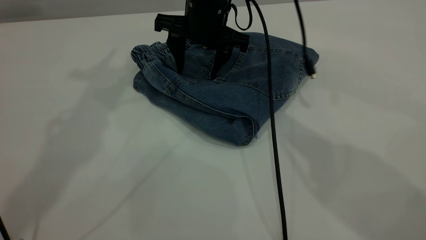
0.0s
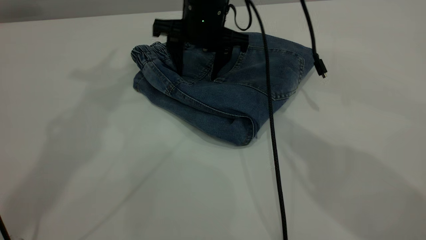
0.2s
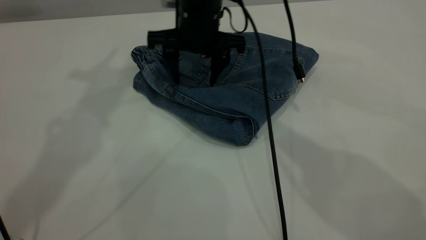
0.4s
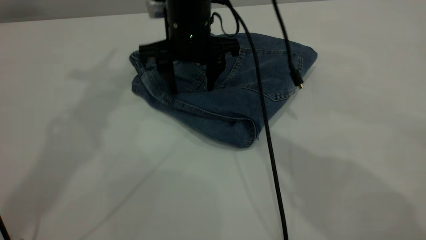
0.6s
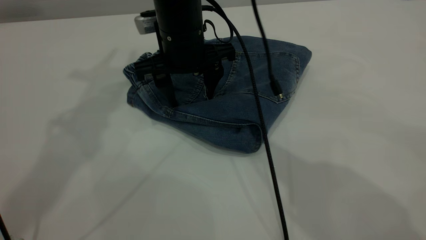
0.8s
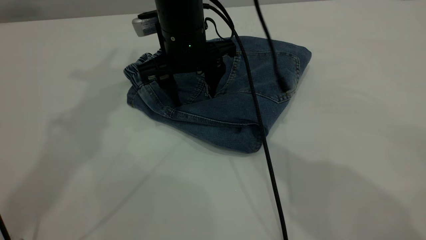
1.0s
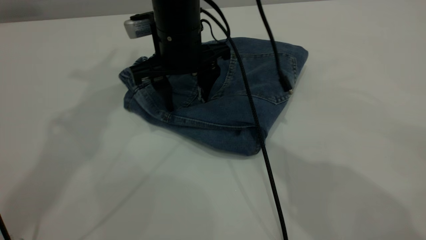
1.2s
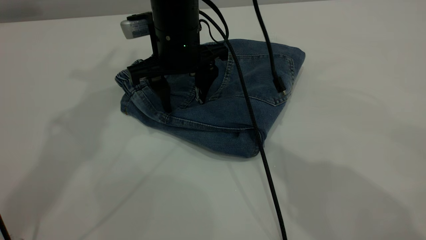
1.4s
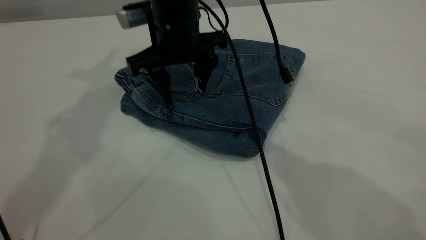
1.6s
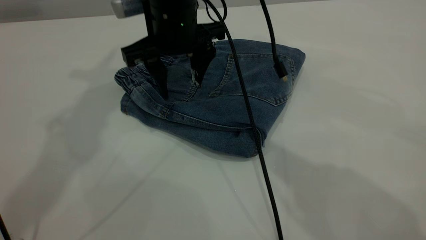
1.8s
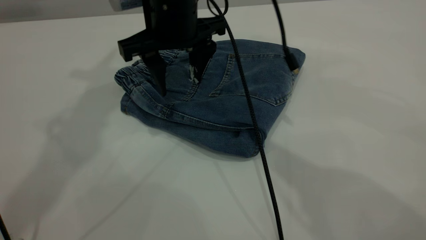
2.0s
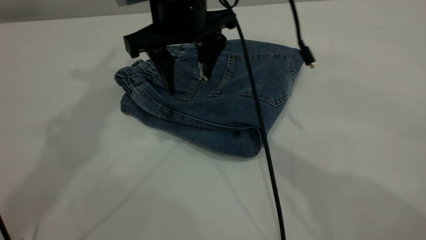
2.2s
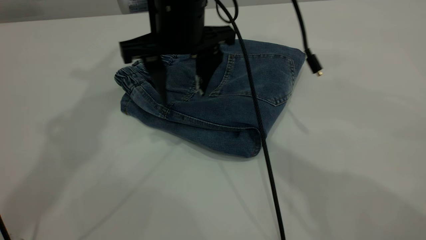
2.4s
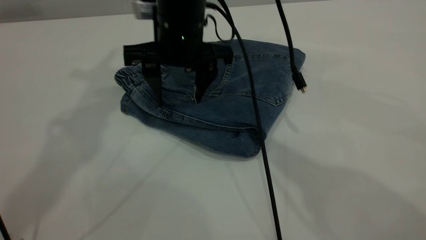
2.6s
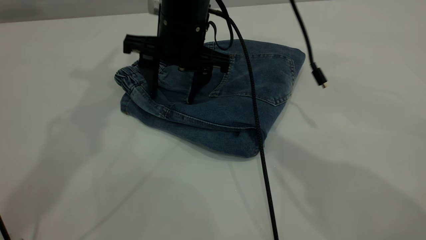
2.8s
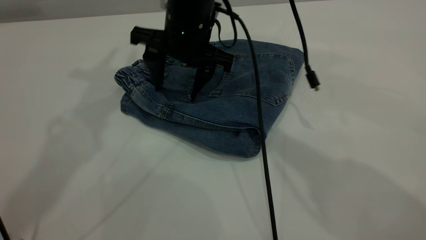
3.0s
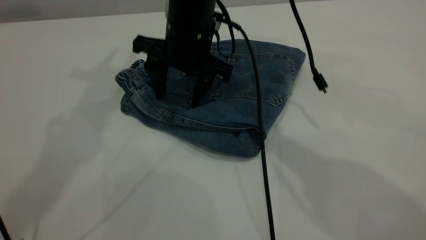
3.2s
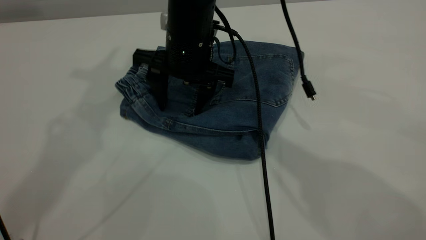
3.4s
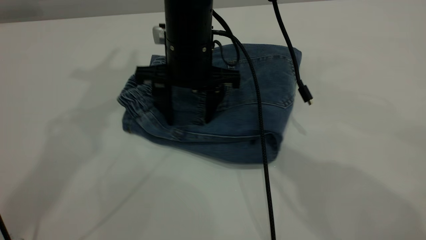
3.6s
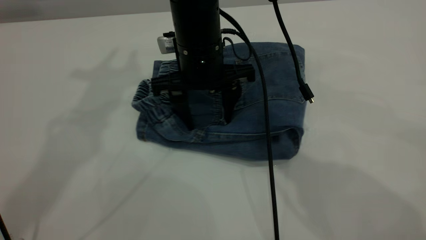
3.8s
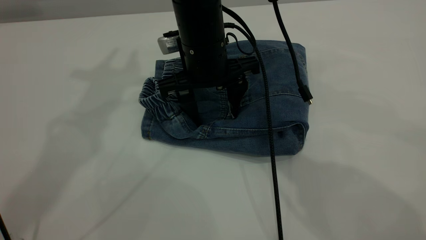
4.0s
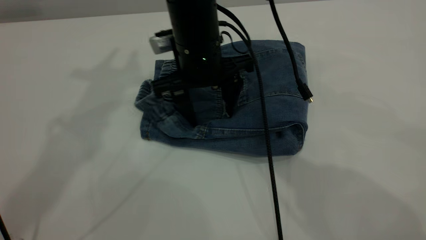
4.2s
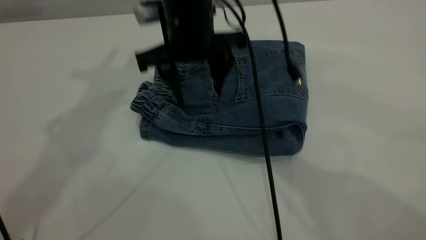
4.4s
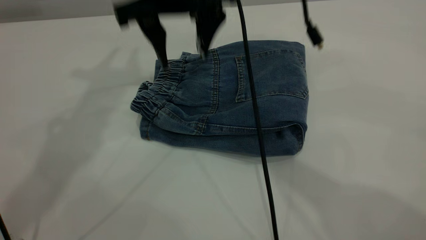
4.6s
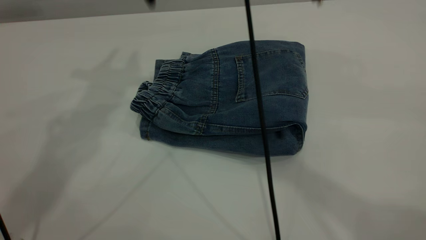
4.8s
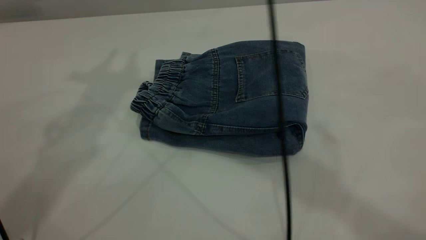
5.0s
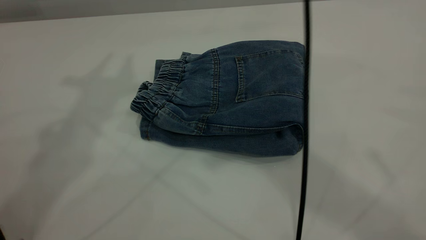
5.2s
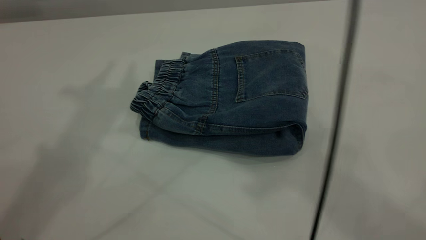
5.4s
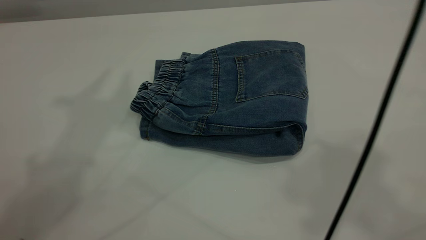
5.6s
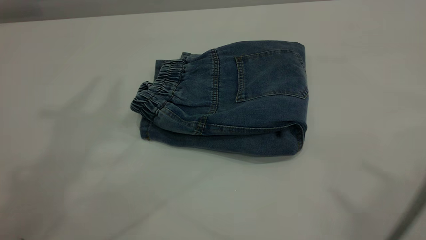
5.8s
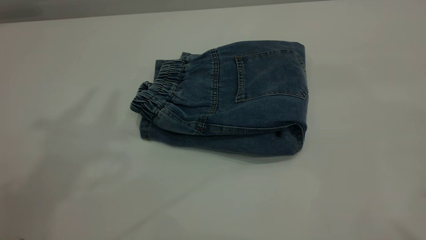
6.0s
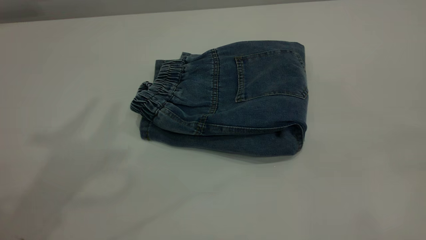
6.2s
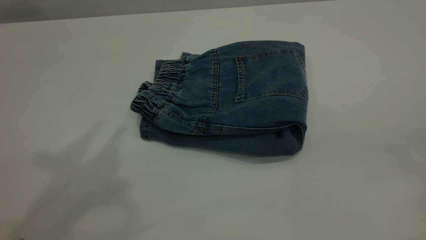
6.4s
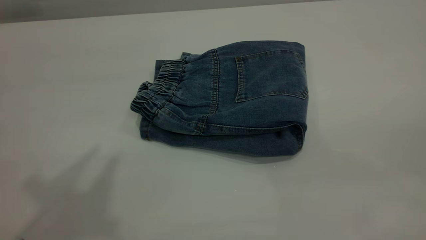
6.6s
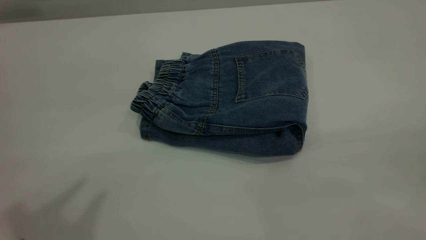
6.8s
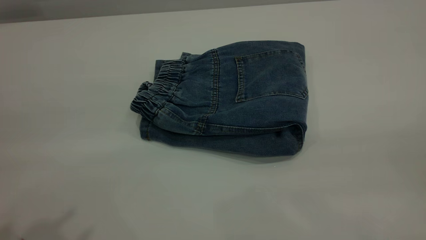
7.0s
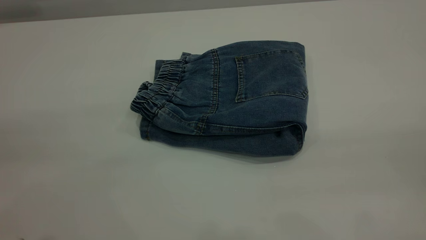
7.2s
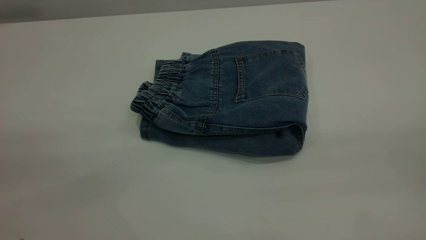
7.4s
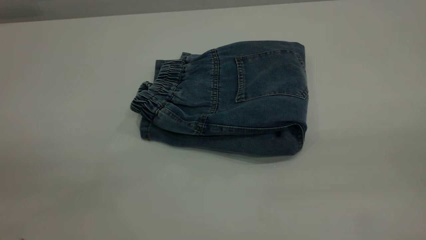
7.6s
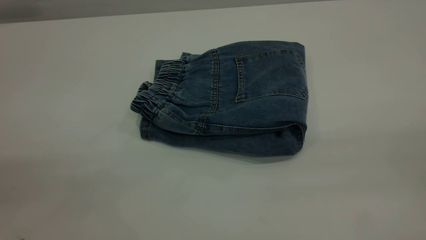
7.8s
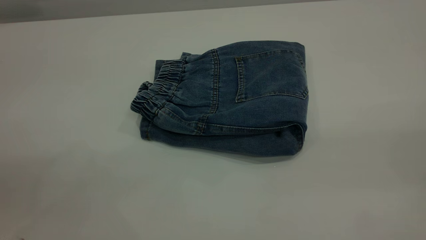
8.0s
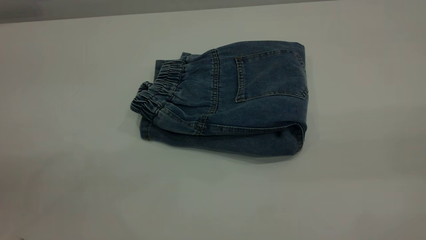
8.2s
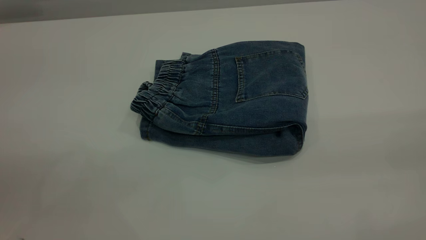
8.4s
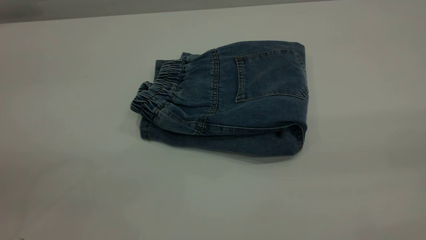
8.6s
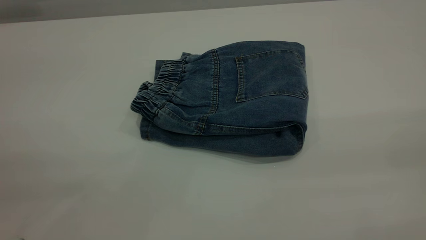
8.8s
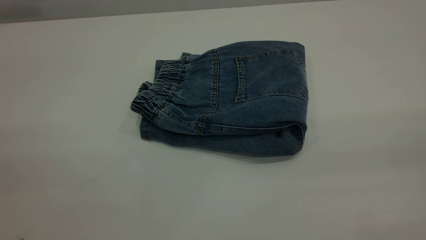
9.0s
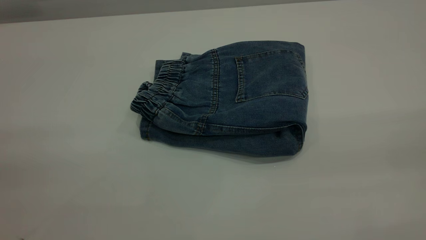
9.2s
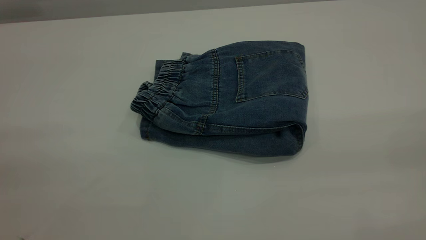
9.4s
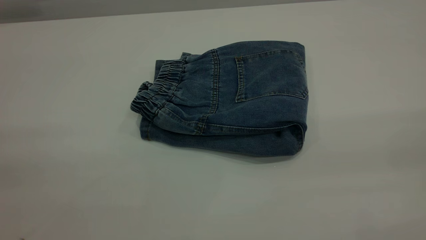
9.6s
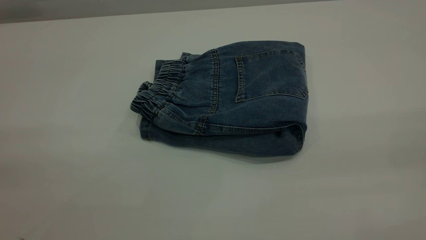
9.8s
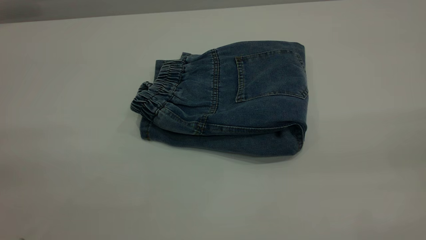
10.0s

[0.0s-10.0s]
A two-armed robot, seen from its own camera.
0.0s to 1.4s: The right gripper goes approximately 5 cm backward.
4.2s to 5.8s: The left gripper moves backward and upward, approximately 15 cm; the right gripper is displaced upward, backward and to the right by about 50 cm.
5.8s to 7.2s: The right gripper travels downward, backward and to the right by about 25 cm.

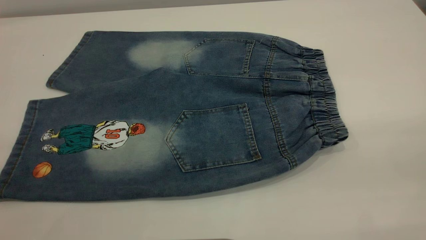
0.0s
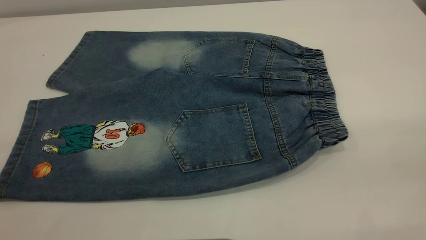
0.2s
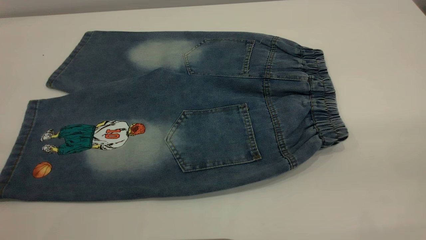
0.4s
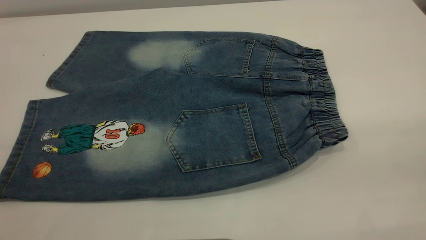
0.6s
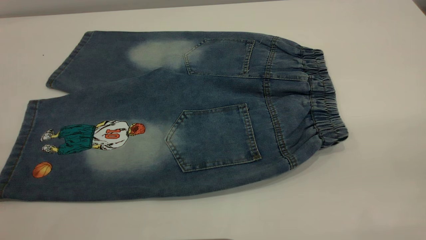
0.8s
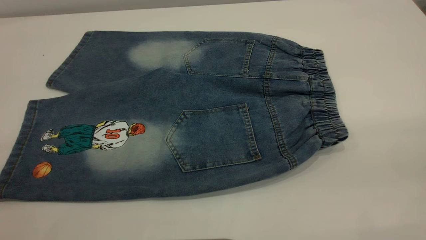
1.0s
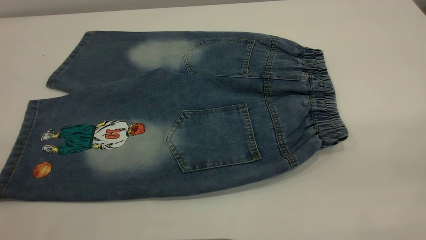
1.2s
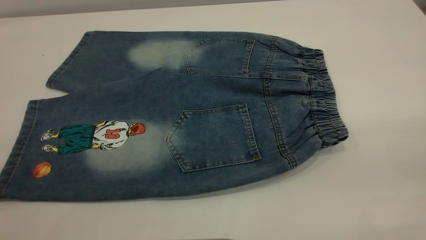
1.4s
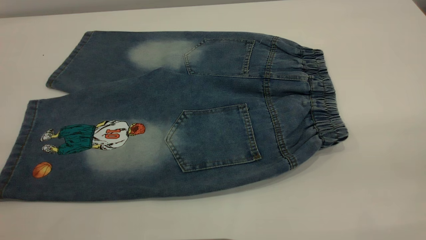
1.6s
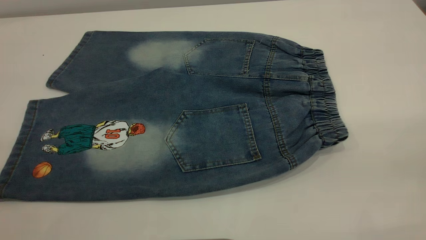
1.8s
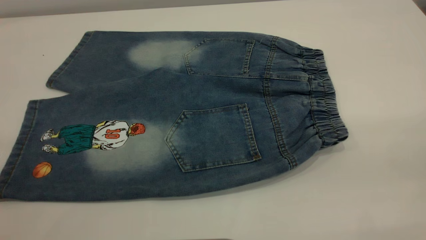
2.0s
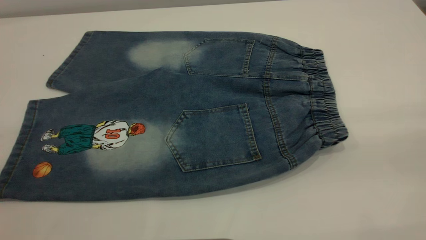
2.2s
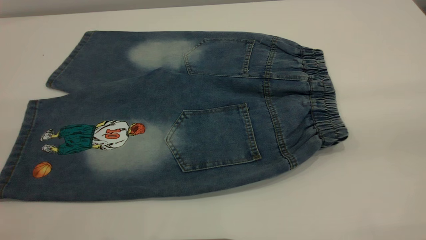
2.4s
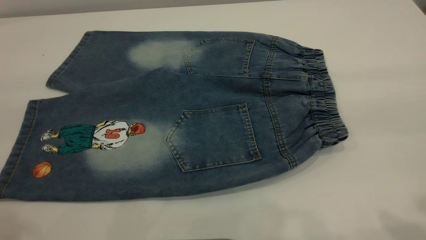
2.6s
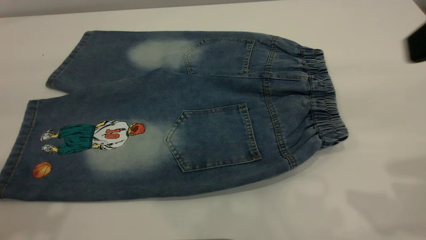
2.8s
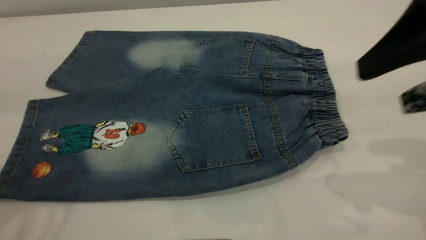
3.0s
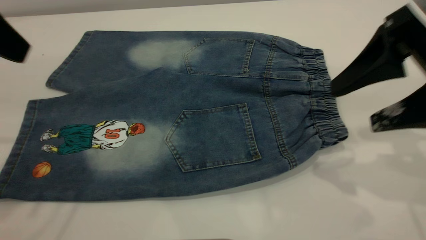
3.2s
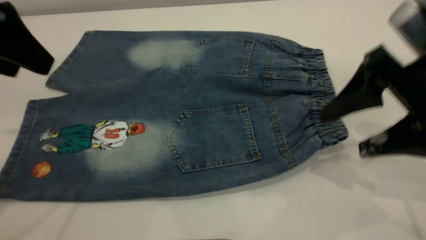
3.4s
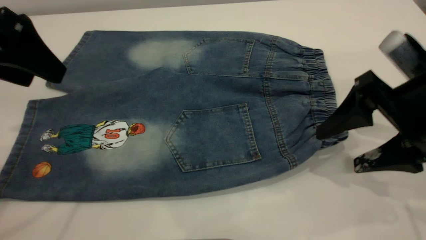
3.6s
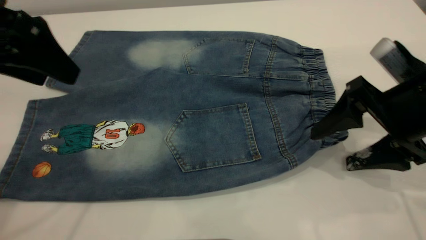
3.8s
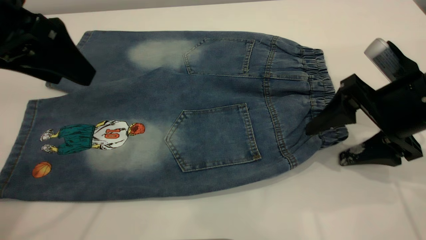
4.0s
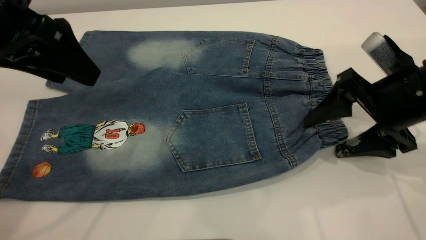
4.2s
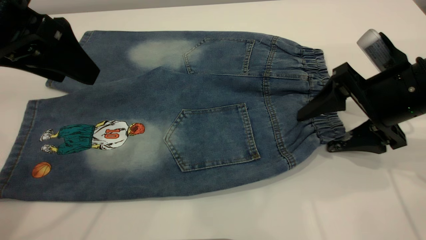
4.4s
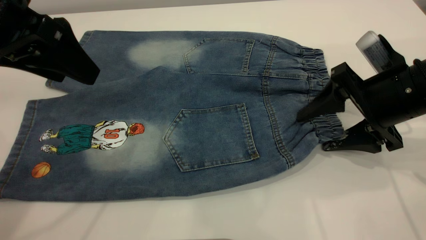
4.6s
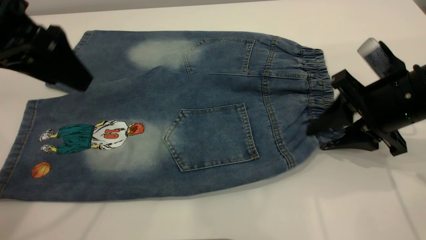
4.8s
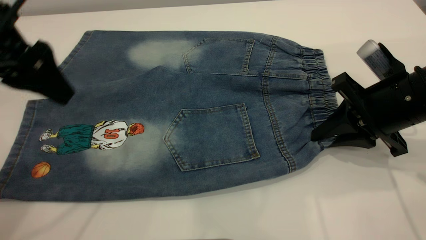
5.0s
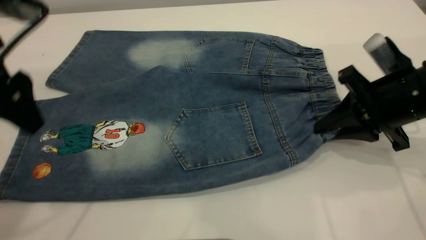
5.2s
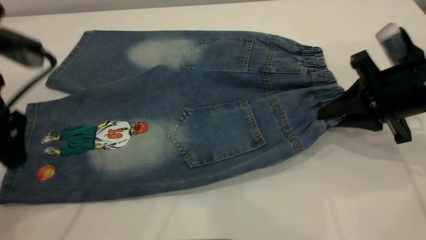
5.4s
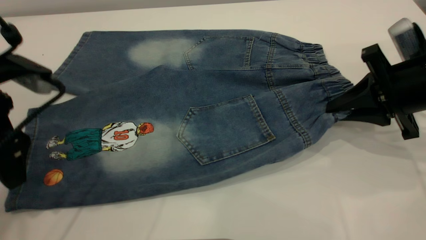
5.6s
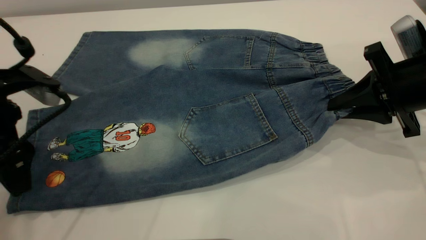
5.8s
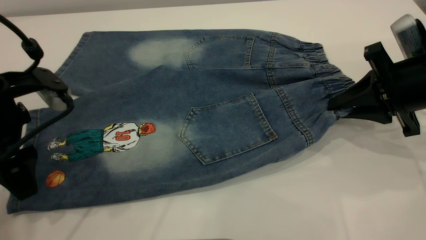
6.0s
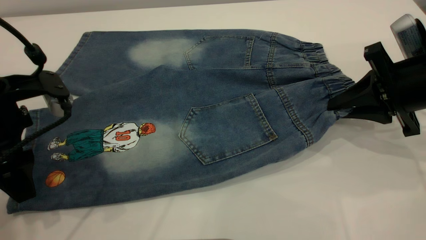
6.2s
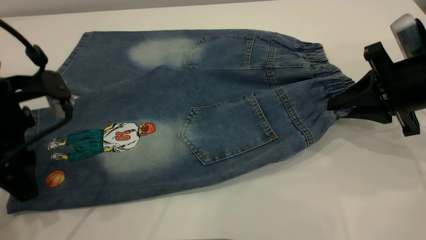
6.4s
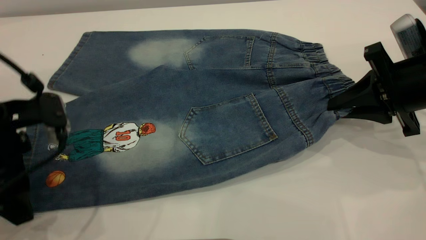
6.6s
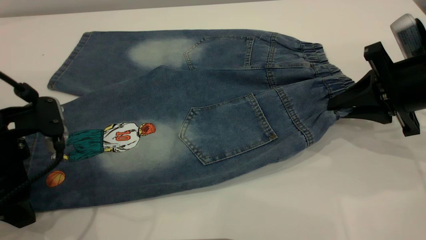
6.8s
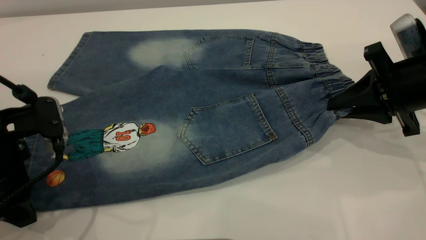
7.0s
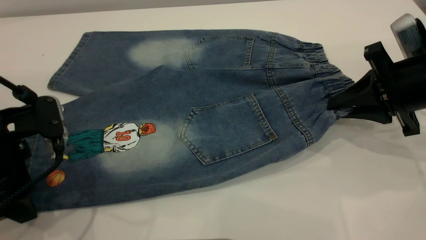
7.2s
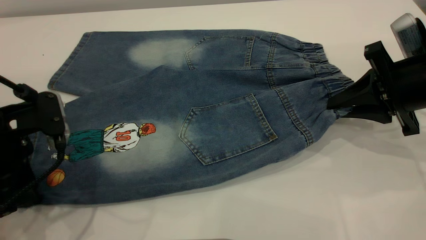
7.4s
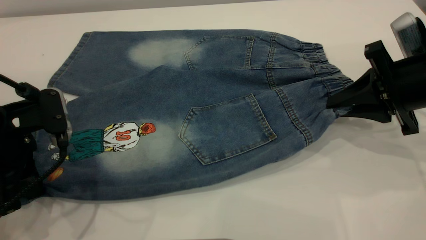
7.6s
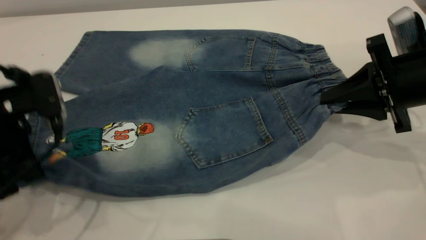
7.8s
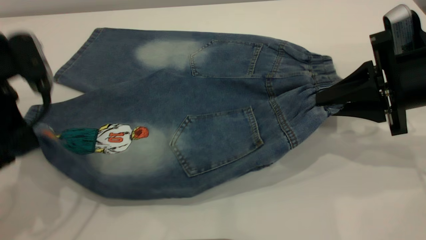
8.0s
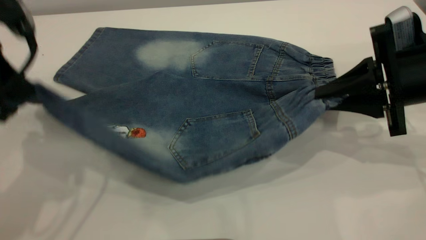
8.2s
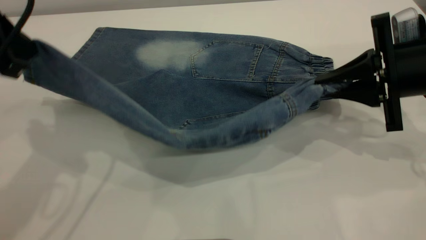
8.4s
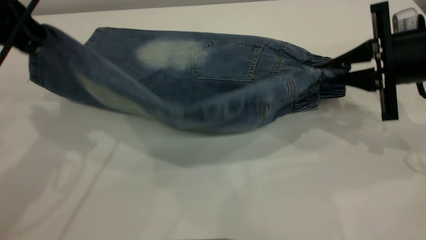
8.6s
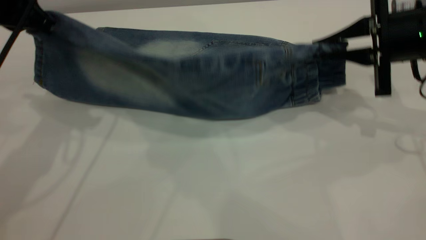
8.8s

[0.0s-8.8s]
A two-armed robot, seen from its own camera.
0.0s to 1.4s: Both grippers stay put.
1.4s to 3.0s: The right gripper shifts some 25 cm forward and downward.
3.0s to 4.4s: The right gripper heads downward and forward, covering approximately 15 cm. Meanwhile the left gripper goes approximately 5 cm downward.
4.4s to 5.8s: The left gripper is displaced downward by approximately 10 cm; the right gripper closes up.
5.8s to 7.4s: The left gripper closes up.
7.4s to 8.8s: The right gripper moves forward, approximately 5 cm; the left gripper travels upward and forward by roughly 15 cm.
